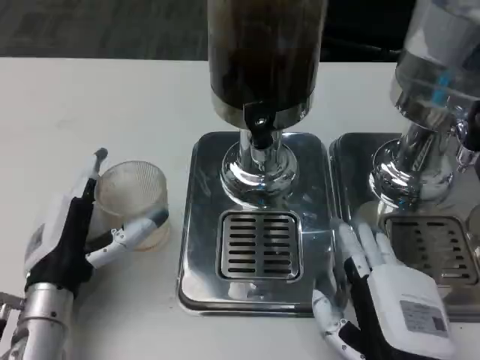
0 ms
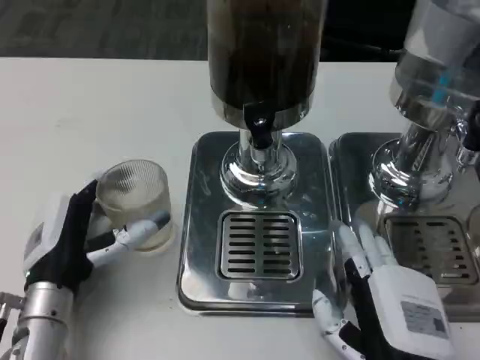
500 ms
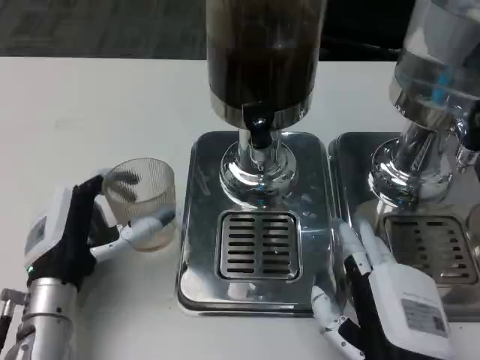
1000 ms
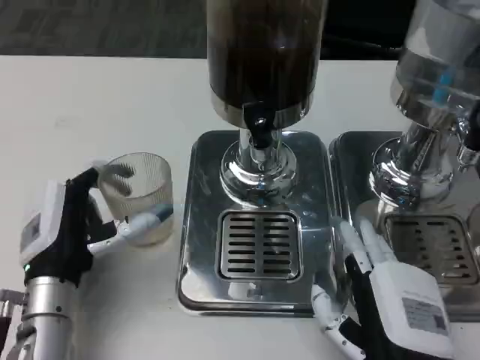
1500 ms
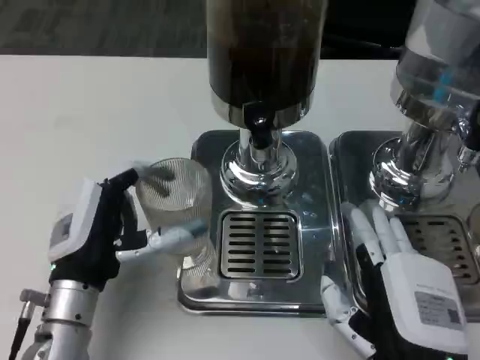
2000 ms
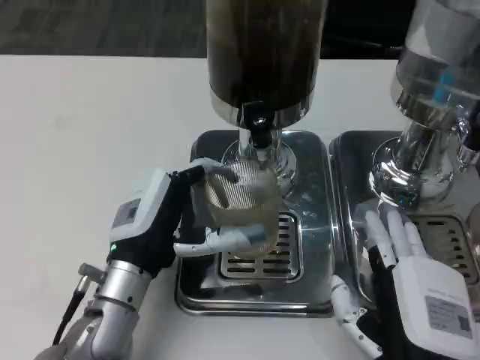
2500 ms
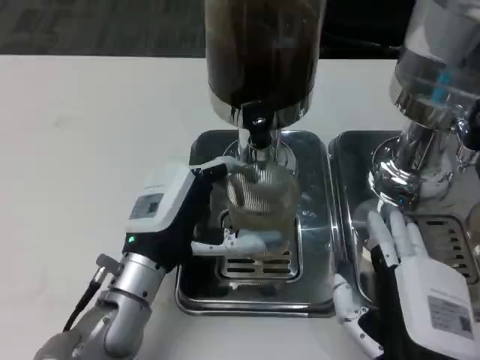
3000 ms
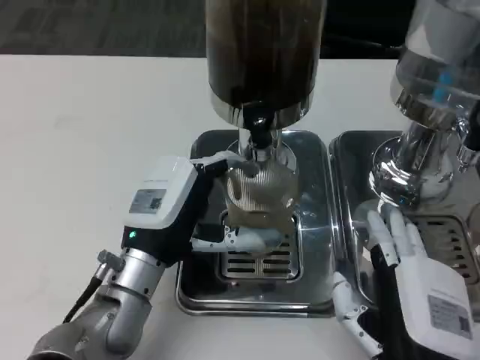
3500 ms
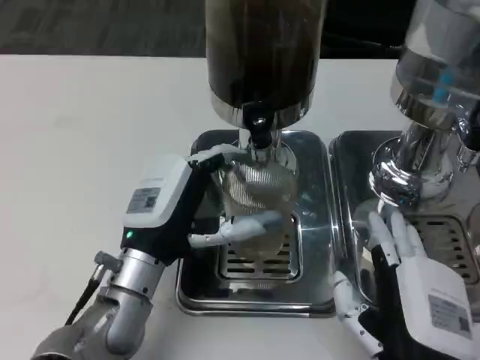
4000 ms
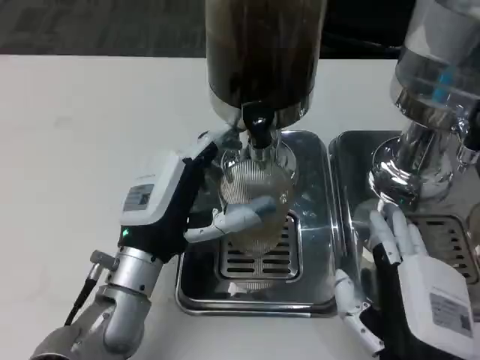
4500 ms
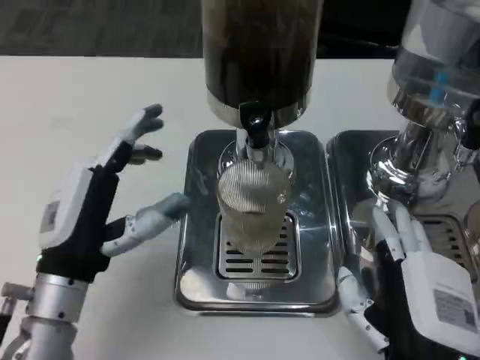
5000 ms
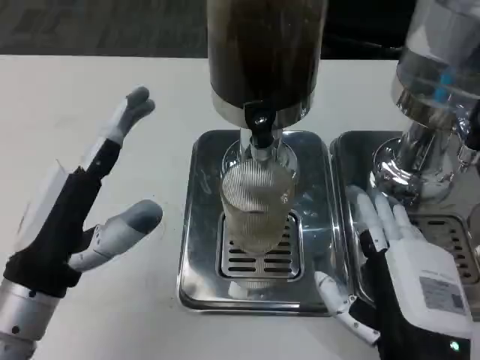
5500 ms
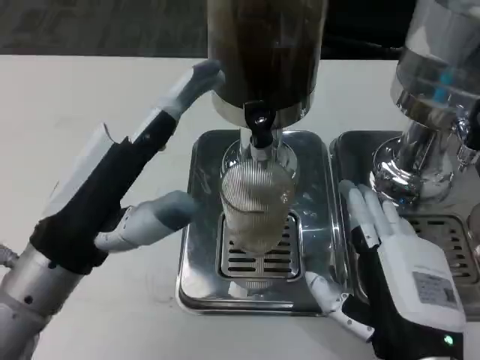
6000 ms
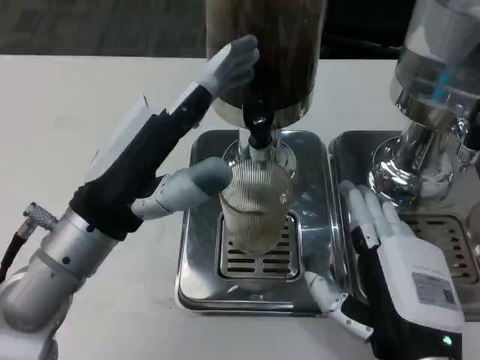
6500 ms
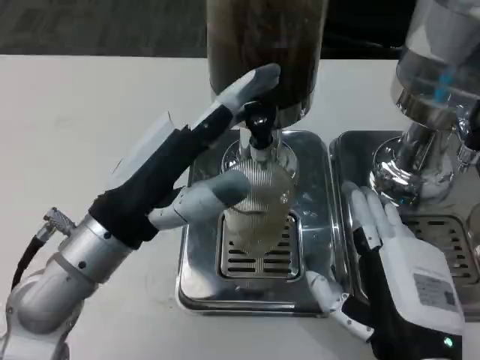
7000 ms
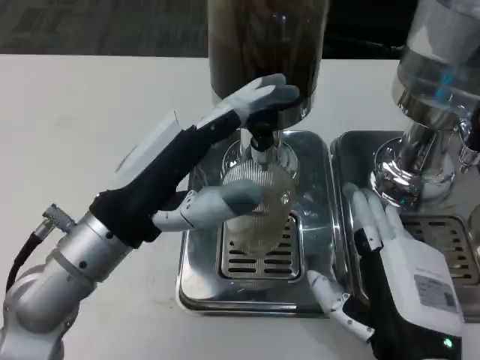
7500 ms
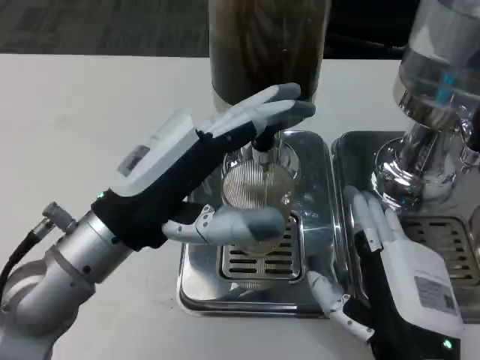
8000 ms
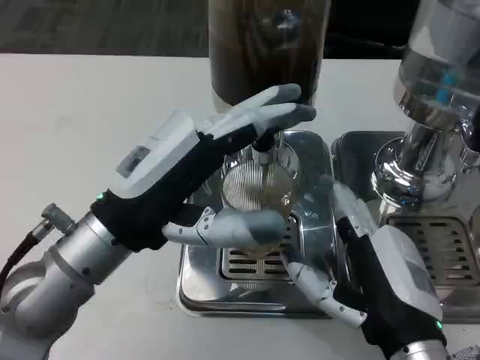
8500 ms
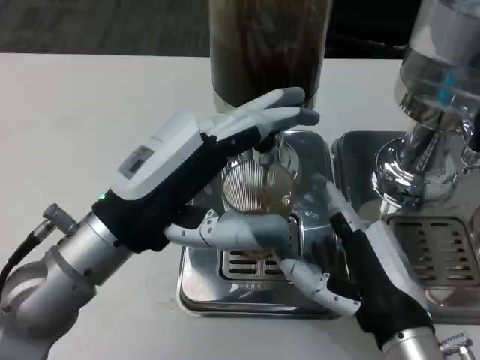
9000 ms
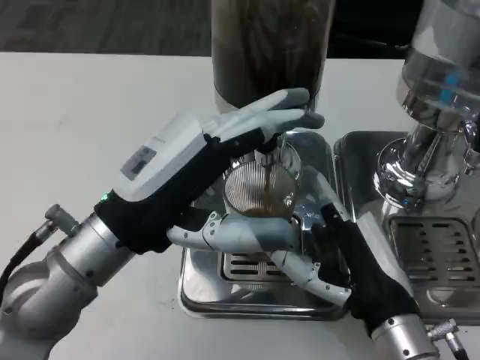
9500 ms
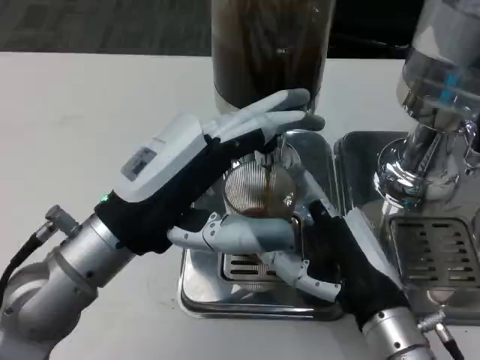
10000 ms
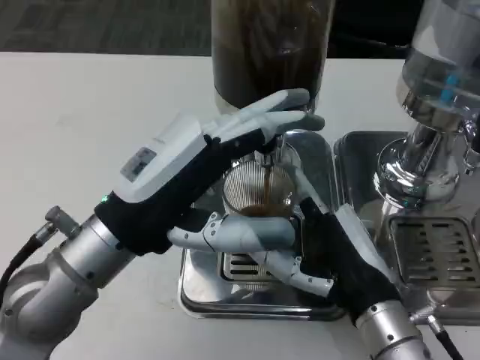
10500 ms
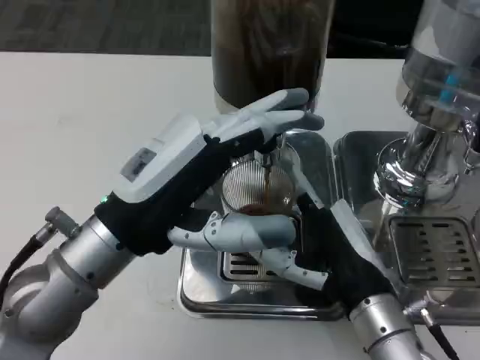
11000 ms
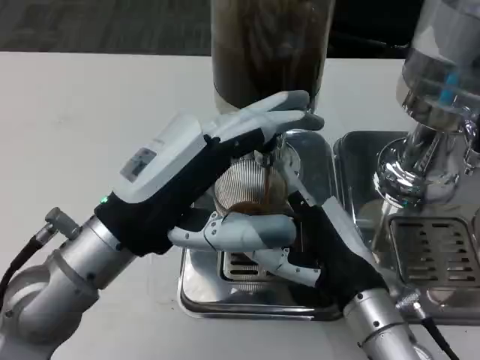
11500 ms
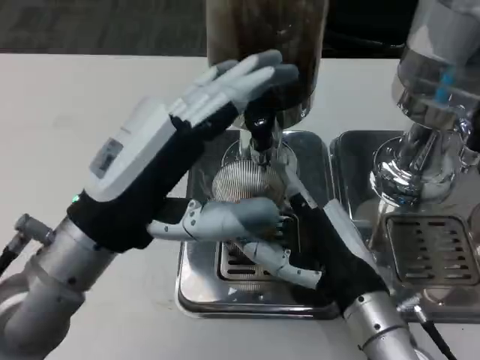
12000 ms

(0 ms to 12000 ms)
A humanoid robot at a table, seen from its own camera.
Task of the whole recording: Grasp the cup under the faucet to collect the drink, then remove the cup.
2000 ms - 4000 ms: The left hand ends up approximately 5 cm from where it was.
4000 ms - 6000 ms: The left hand moves upward and to the left, some 10 cm.
8000 ms - 10000 ms: The right hand travels forward by roughly 5 cm.

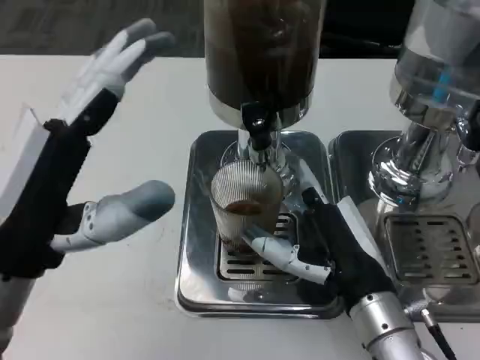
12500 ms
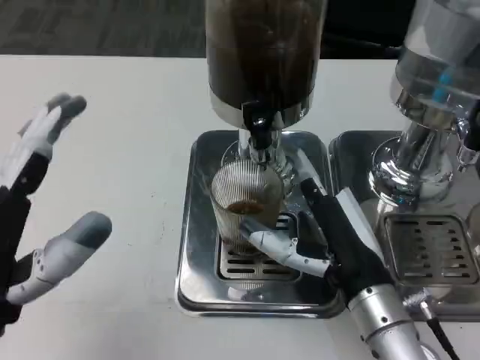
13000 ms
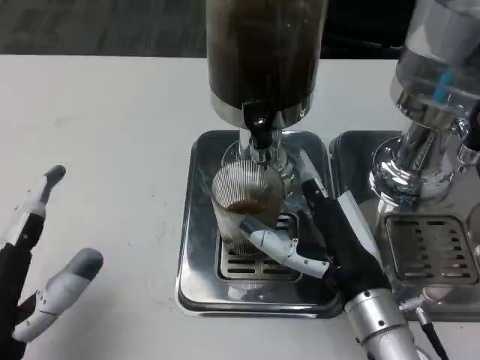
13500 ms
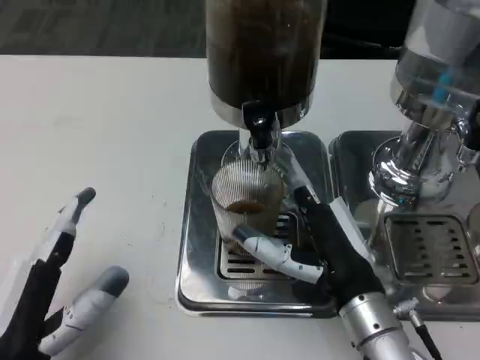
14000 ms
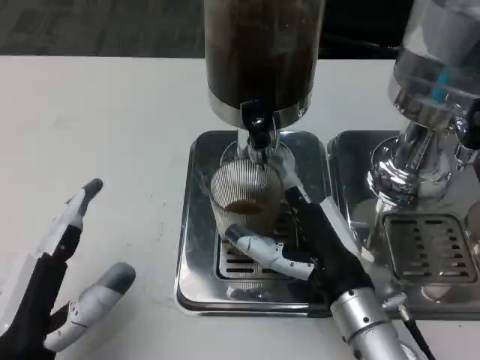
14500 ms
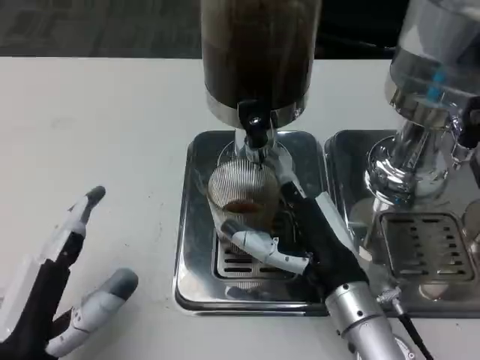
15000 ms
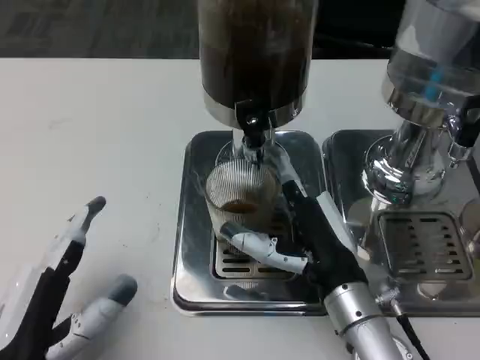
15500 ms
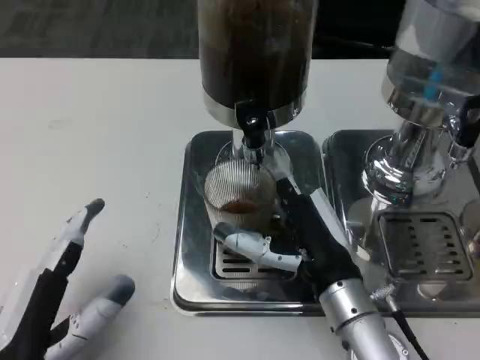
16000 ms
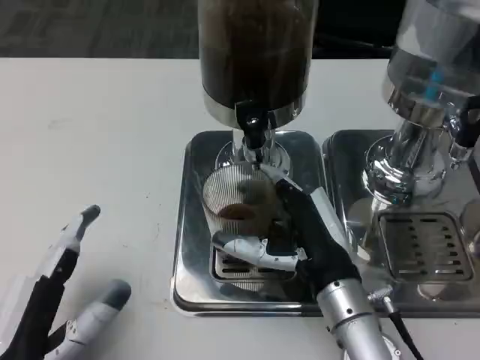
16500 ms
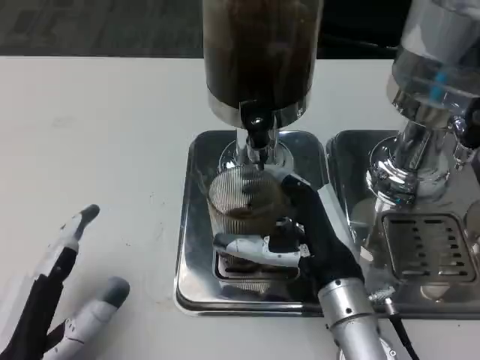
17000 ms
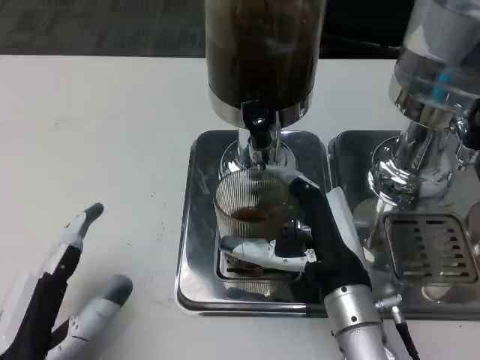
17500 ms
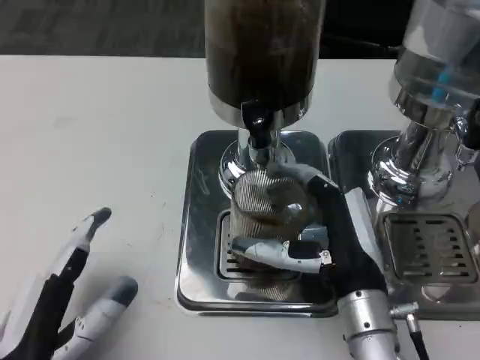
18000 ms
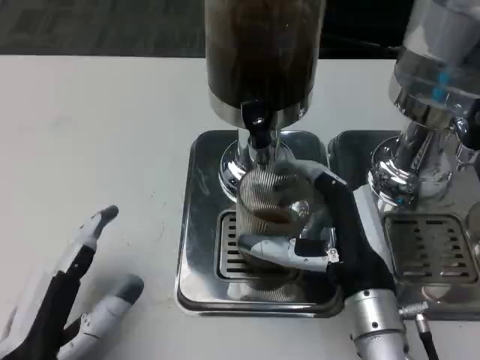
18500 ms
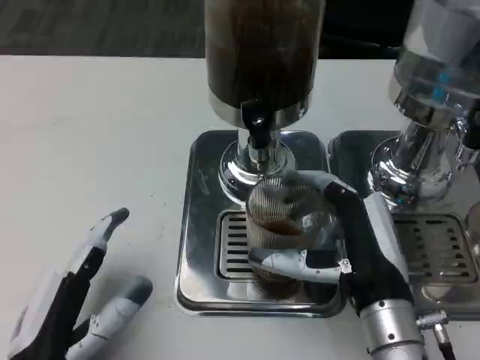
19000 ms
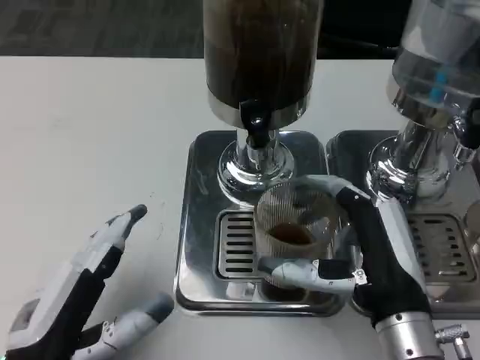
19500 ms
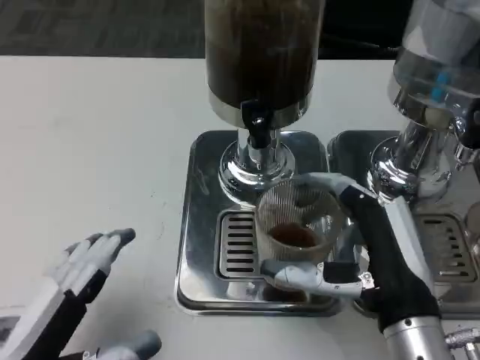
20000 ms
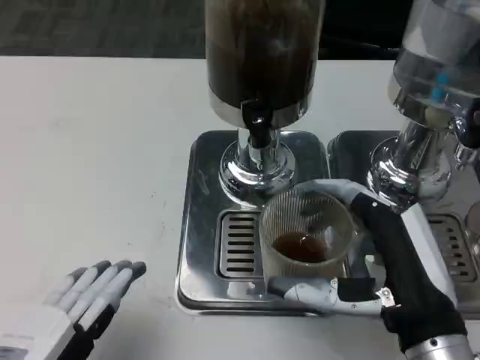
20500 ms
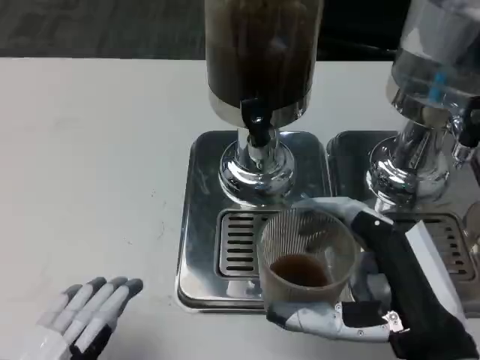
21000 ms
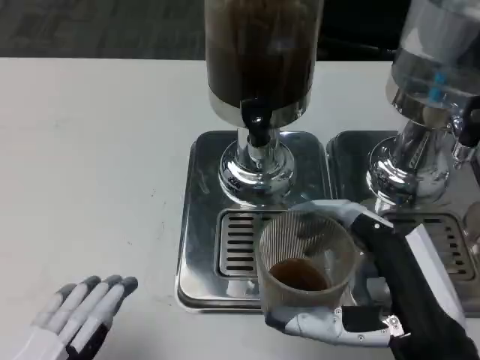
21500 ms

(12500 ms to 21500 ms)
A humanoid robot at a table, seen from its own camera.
Task of the whole recording: Grasp the cup under the faucet to collect the drink, then remove the cup.
12500 ms - 14500 ms: The left hand goes roughly 10 cm downward and backward.
14500 ms - 17000 ms: The hands stay close to where they were, moving slightly.
17000 ms - 19500 ms: The right hand heads backward, covering approximately 5 cm.
19500 ms - 21500 ms: The two hands go approximately 5 cm backward.

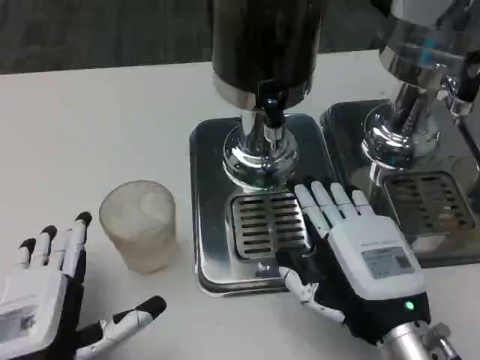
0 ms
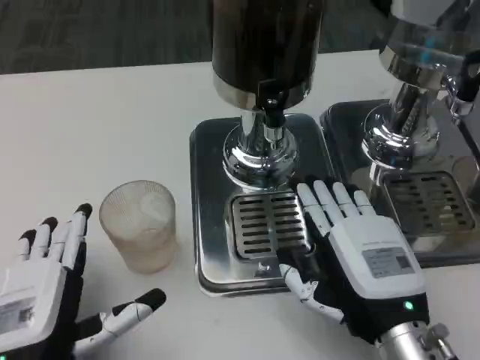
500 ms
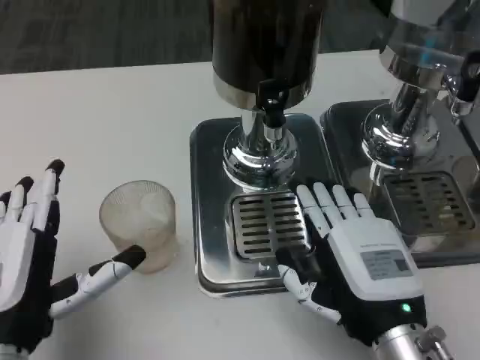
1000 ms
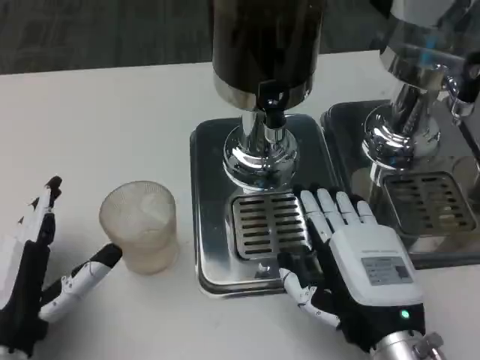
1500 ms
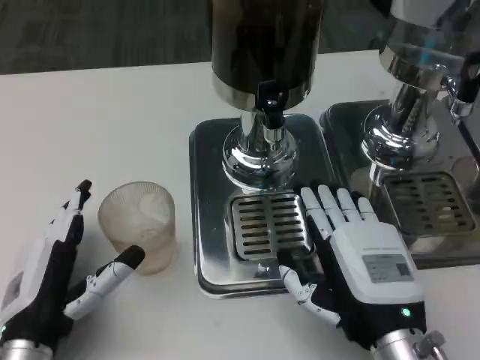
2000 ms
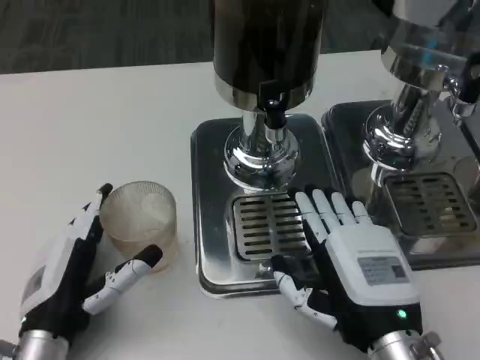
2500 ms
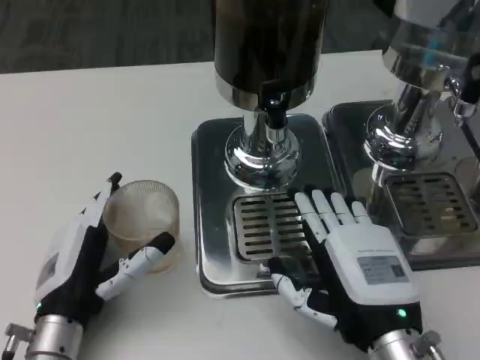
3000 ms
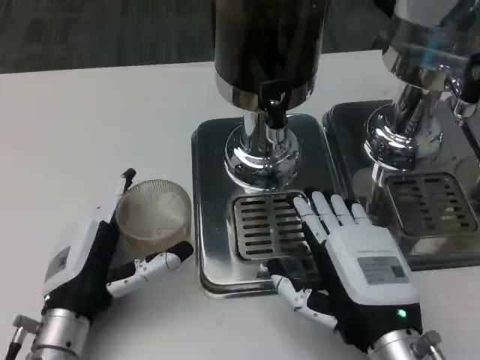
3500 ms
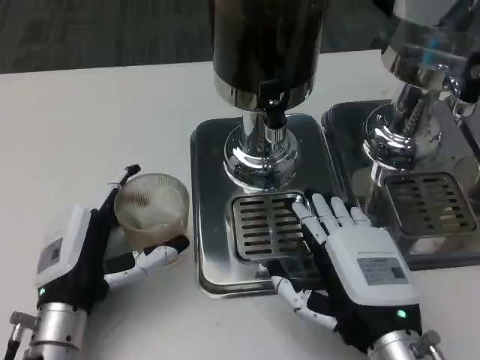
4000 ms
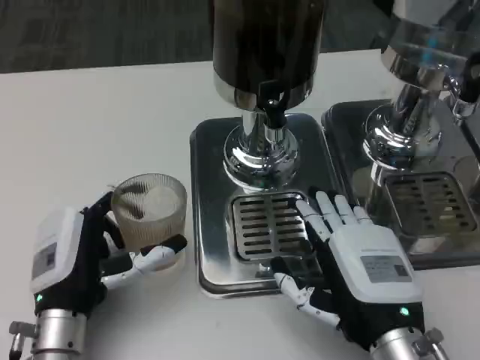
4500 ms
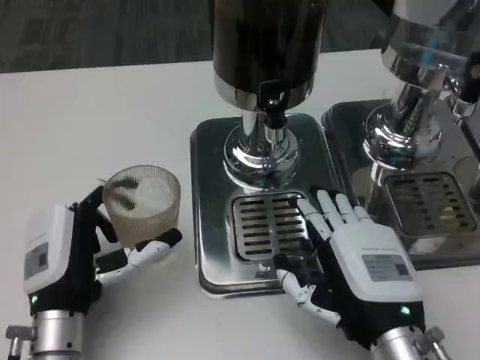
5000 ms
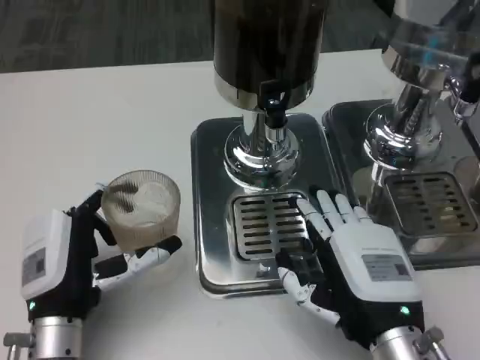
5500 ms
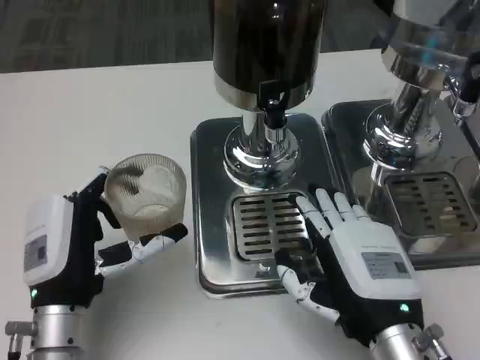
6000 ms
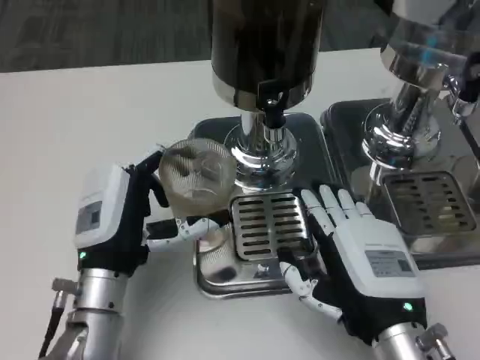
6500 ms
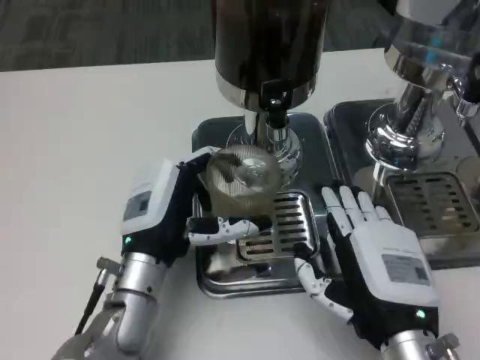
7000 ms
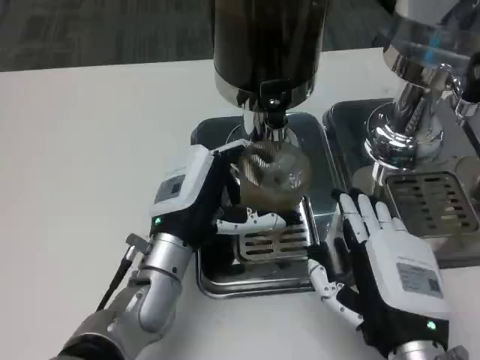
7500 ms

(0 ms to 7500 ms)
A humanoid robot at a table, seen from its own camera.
Task of the whole recording: Grasp the cup under the faucet to collect the drink, then remove the cup.
0 ms - 2000 ms: The left hand is displaced forward by approximately 5 cm.
2000 ms - 5500 ms: There are only small adjustments of the hands.
5500 ms - 7500 ms: The left hand is displaced to the right and forward by about 10 cm.
